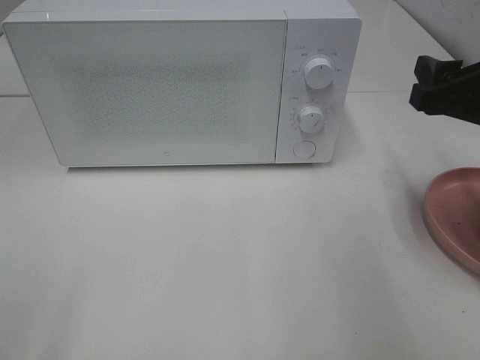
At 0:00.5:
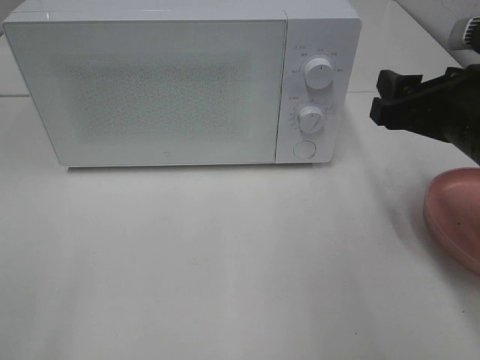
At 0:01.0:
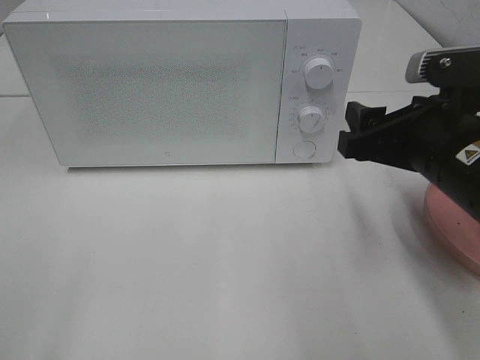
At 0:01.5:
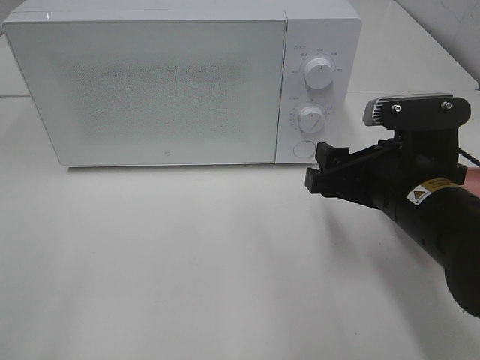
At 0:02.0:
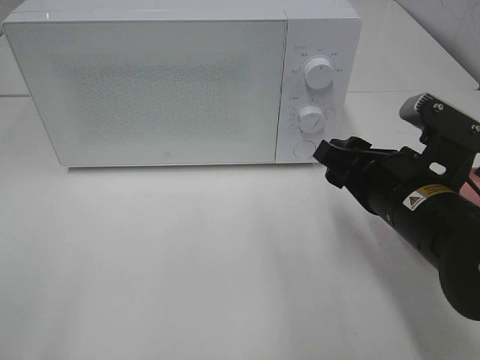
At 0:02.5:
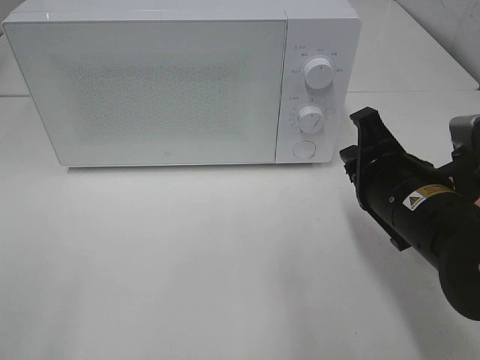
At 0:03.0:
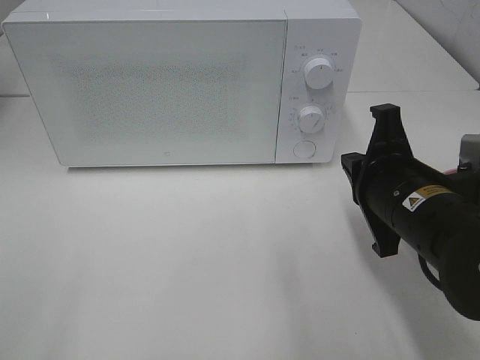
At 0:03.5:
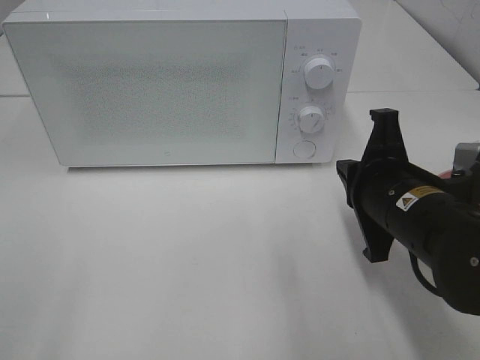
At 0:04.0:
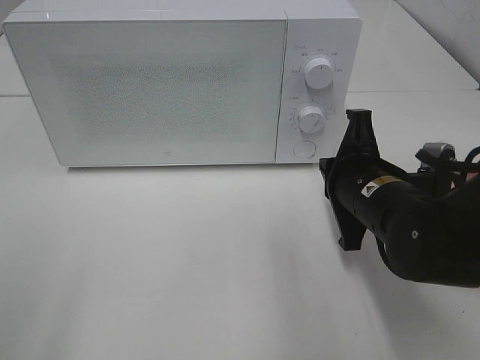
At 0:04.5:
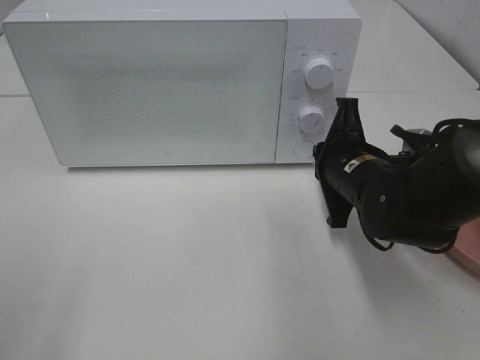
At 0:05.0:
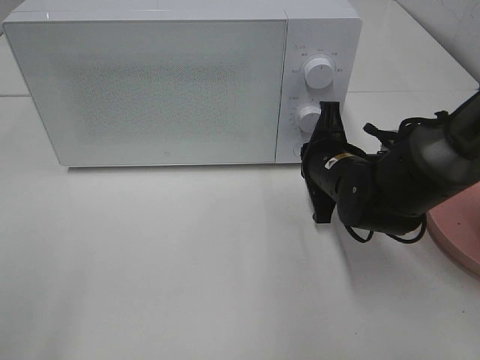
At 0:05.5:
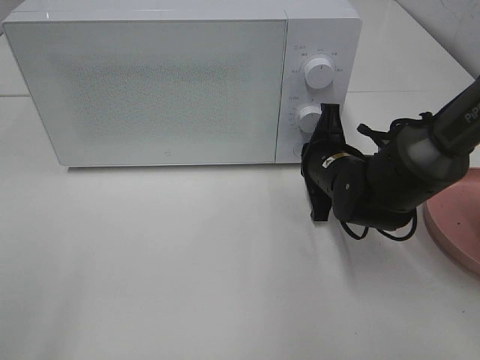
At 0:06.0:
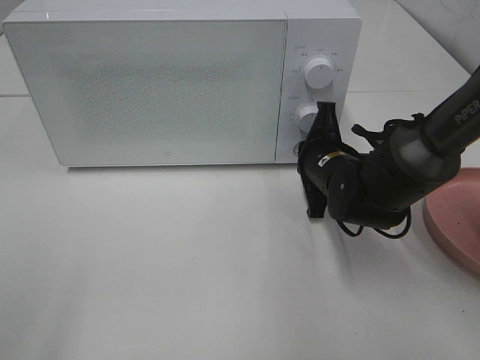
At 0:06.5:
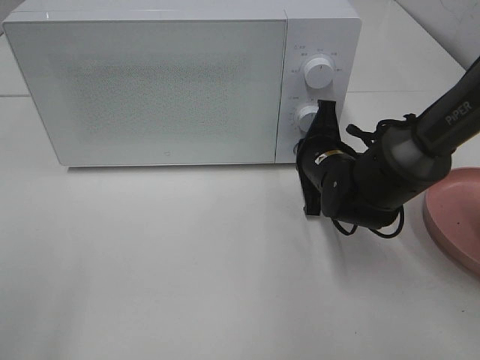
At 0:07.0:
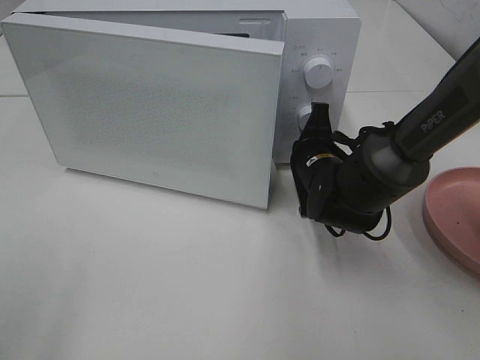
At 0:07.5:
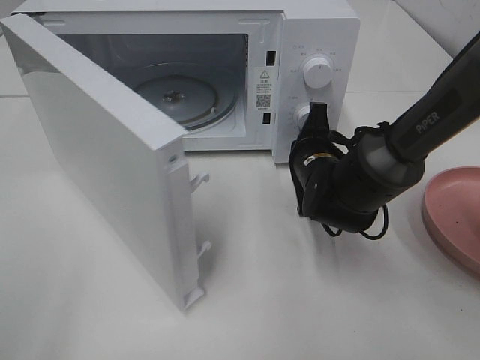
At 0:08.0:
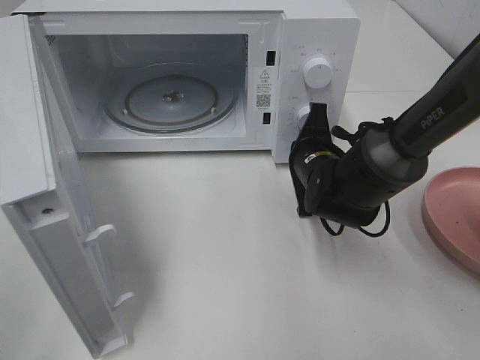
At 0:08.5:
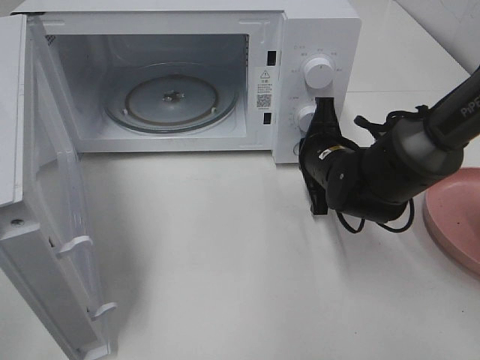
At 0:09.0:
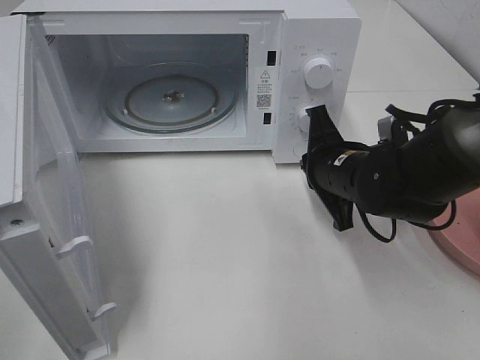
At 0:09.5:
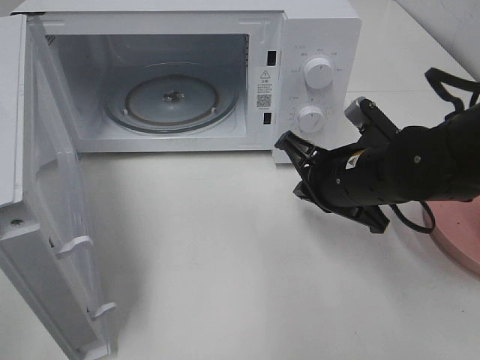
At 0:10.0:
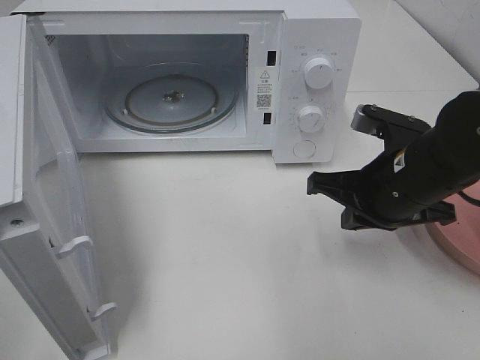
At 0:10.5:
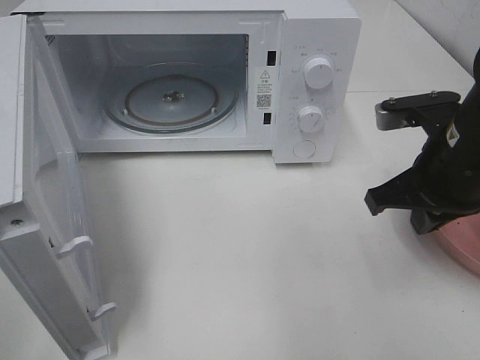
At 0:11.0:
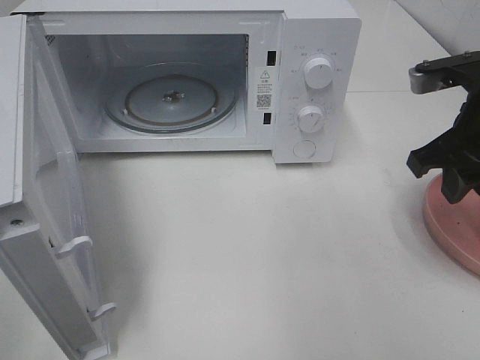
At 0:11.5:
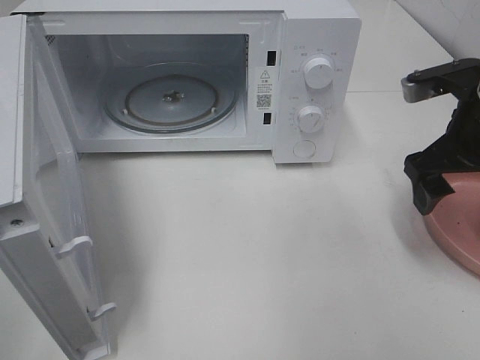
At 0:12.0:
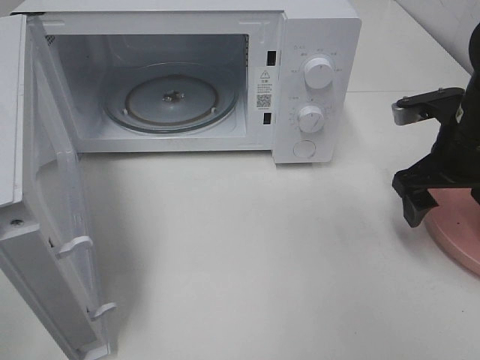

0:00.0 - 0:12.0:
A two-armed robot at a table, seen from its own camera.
Task of the whole recording: Heat the burger.
Step, 0:00.0 - 0:08.5: Right hand: press the switch.
0:00.0 - 0:02.0: The right gripper goes some 10 cm to the left and downward.
0:02.0 - 0:04.0: The right gripper closes its fingers.
0:04.0 - 0:06.0: The right gripper moves forward, approximately 10 cm.
0:08.0 - 0:10.0: The right gripper travels backward, upward and to the right by roughly 15 cm.
0:10.0 - 0:12.0: The right gripper goes about 10 cm to the right, and opens its fingers.

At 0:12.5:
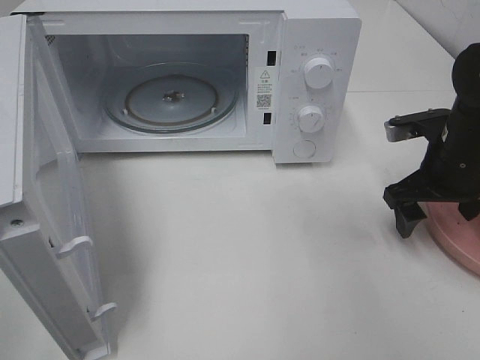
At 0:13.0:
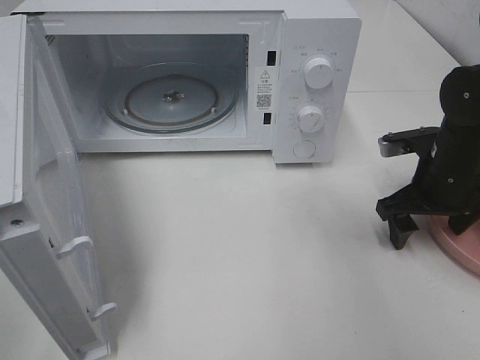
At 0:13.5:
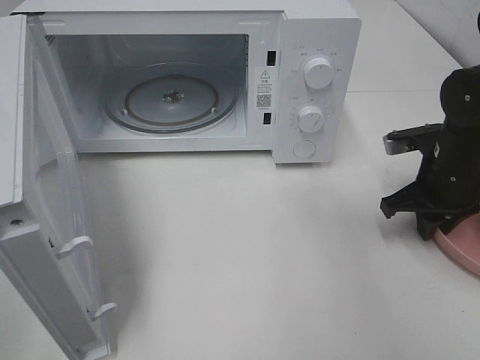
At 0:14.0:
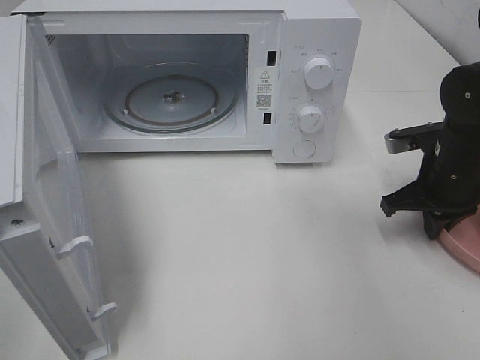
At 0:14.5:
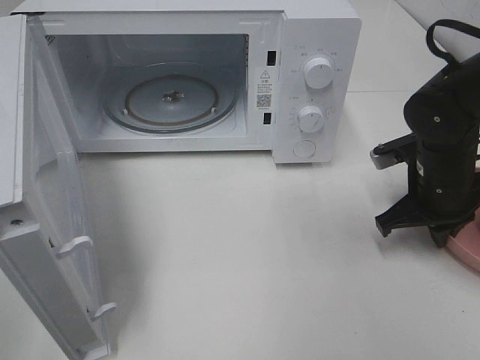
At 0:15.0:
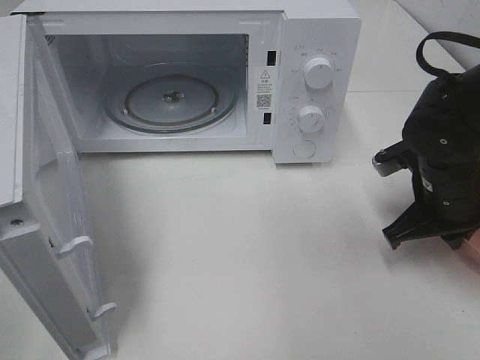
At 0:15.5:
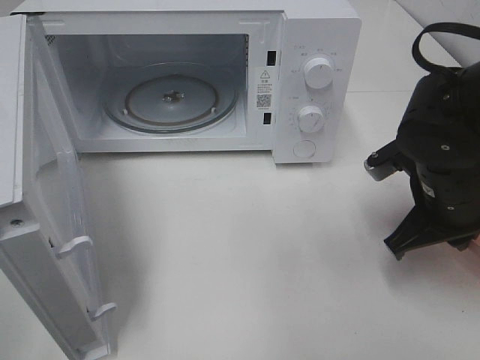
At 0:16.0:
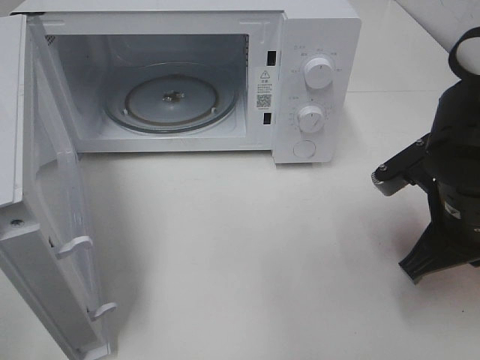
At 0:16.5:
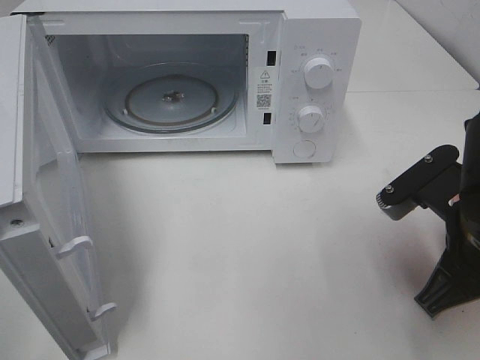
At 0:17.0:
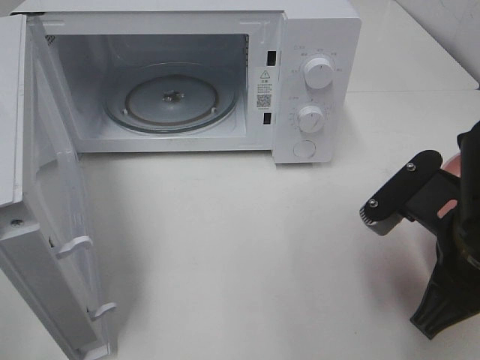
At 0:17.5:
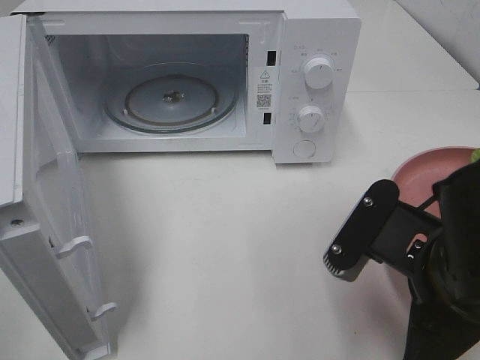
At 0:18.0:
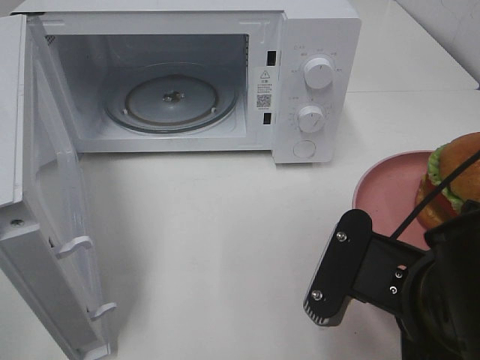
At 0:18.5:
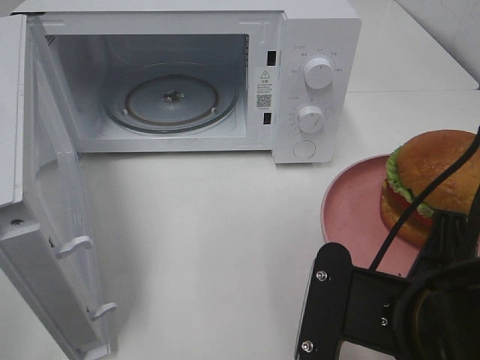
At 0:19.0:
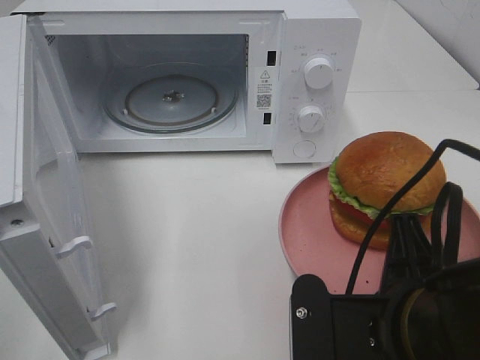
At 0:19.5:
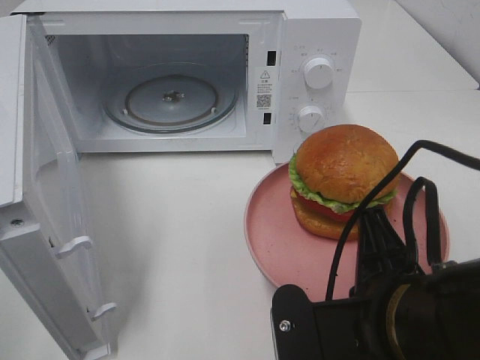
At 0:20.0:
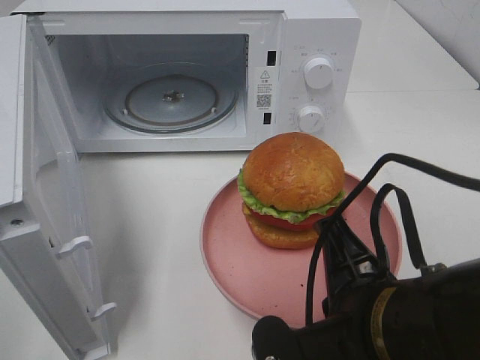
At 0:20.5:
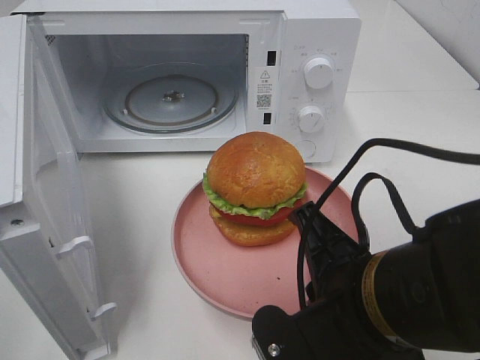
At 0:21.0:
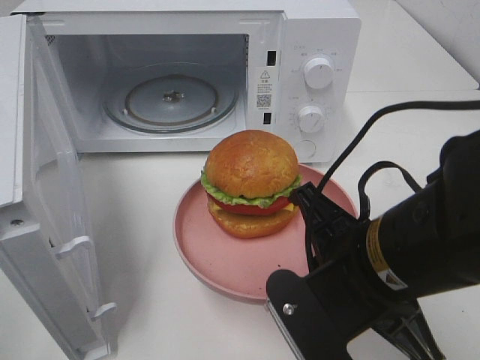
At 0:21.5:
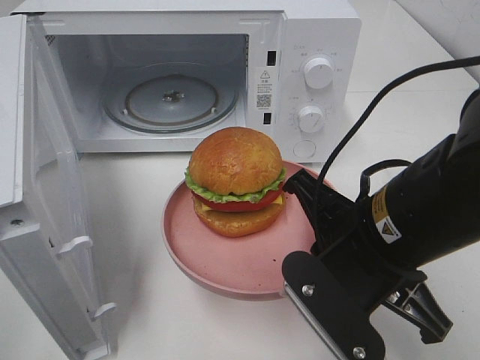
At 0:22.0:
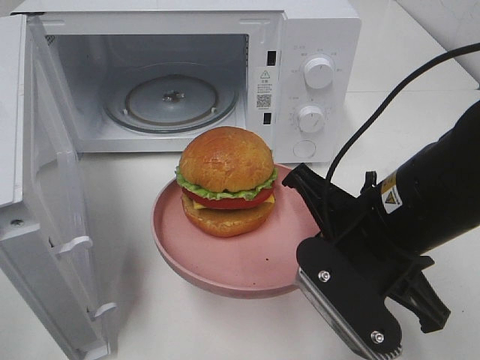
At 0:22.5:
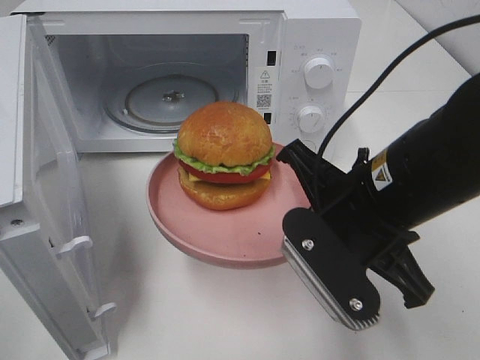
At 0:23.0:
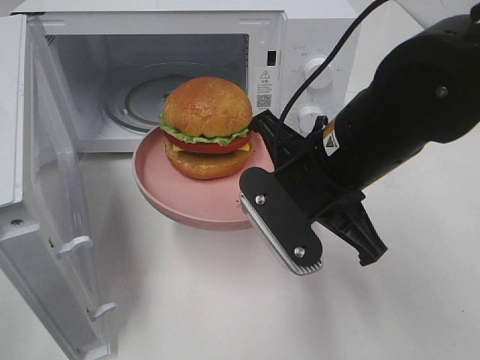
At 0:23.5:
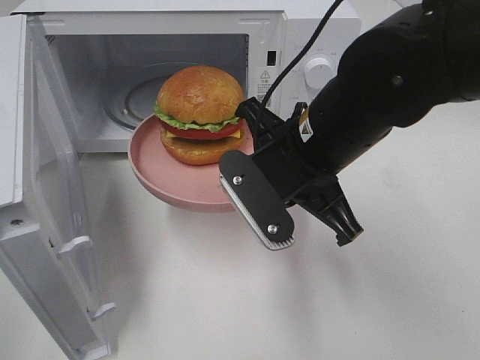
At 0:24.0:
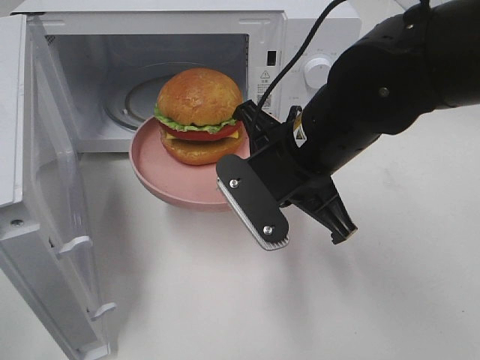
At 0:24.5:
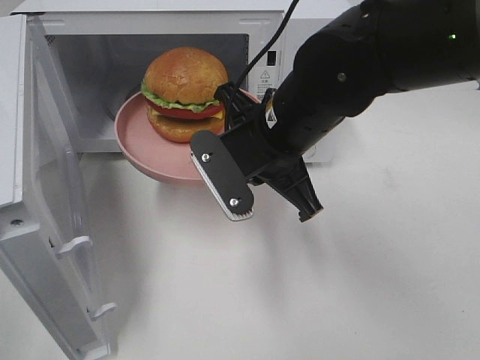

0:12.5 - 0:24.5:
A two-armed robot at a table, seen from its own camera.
Task of the whole recording: Heat the burger.
0:12.5 - 0:14.5: The right gripper closes up.
0:14.5 - 0:16.5: The right gripper goes some 15 cm backward and upward.
0:16.5 - 0:18.5: The right gripper travels backward and to the left by some 10 cm.
0:20.5 - 0:22.5: The right gripper moves forward, some 10 cm.
0:22.5 - 0:24.5: The right gripper heads forward and to the left, covering approximately 10 cm.

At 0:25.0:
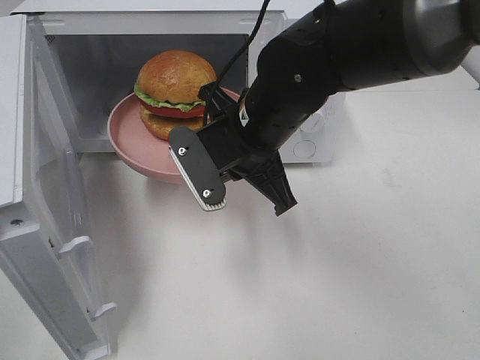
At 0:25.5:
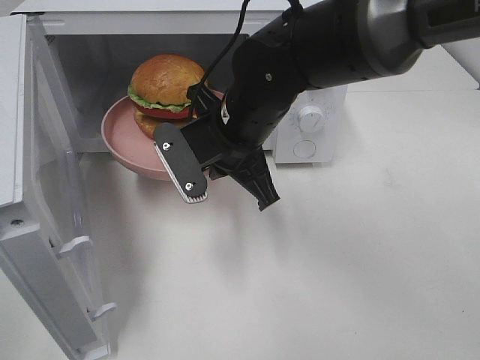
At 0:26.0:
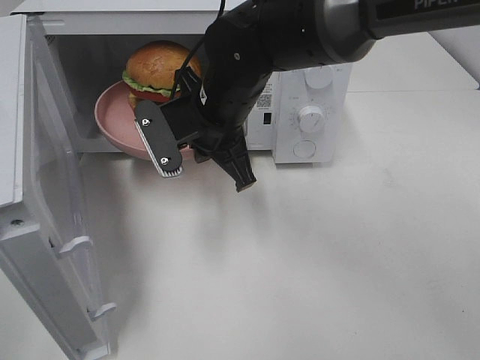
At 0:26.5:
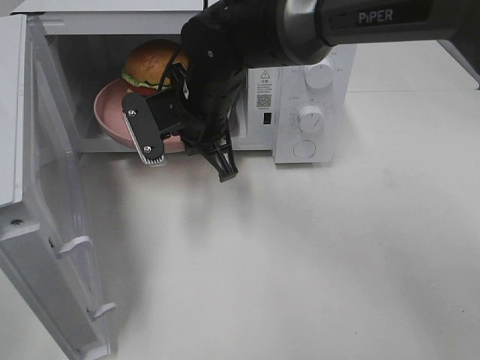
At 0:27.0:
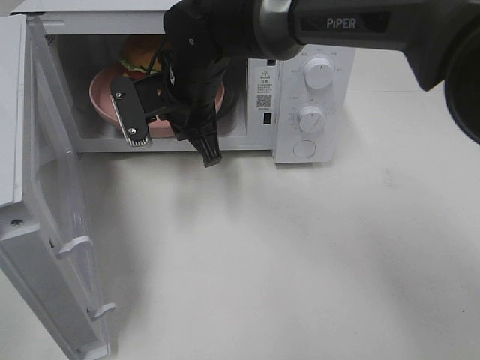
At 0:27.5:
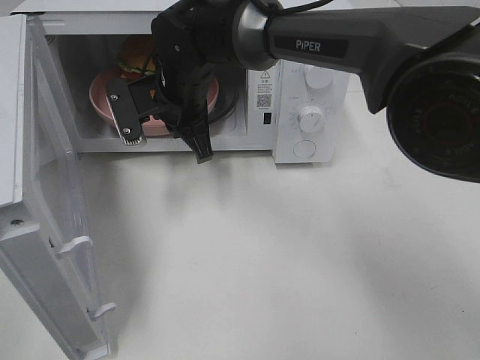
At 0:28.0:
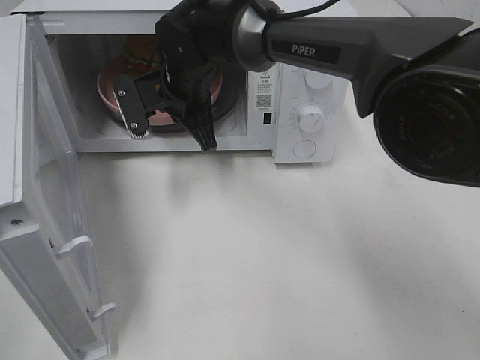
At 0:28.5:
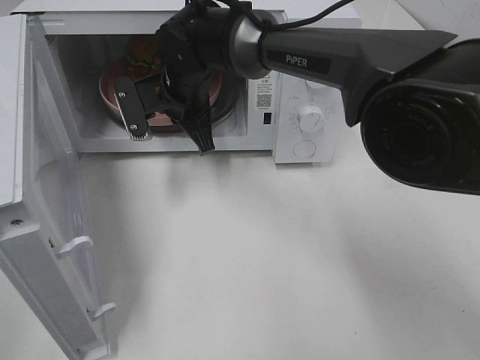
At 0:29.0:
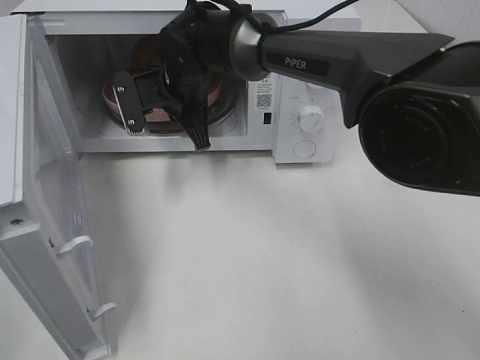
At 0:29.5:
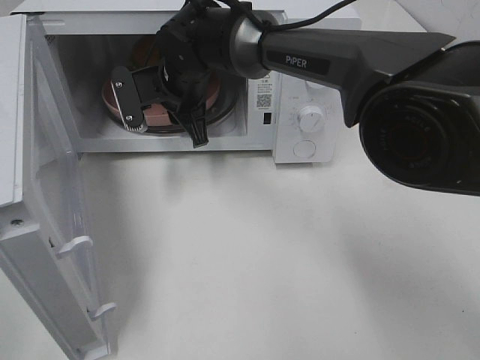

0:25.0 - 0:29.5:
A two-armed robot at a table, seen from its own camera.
Task of the whole recording: Heat the burger.
0:25.0 - 0:27.0: The right gripper shifts some 10 cm forward and to the left.
0:27.0 - 0:29.5: The right gripper ends up approximately 5 cm from where it was, and opens up.
